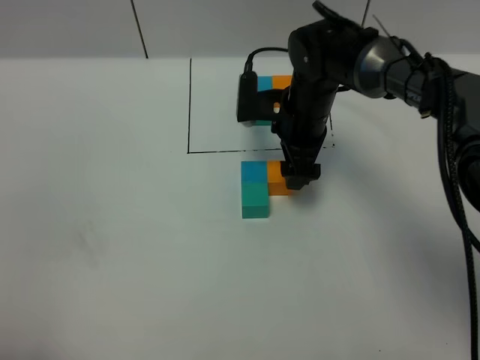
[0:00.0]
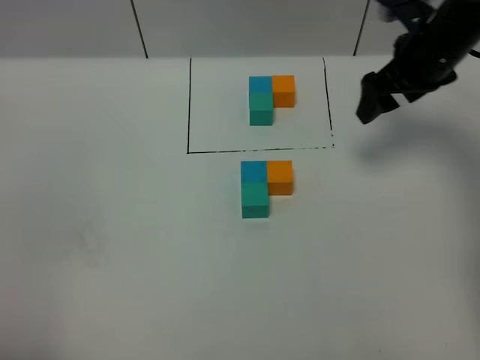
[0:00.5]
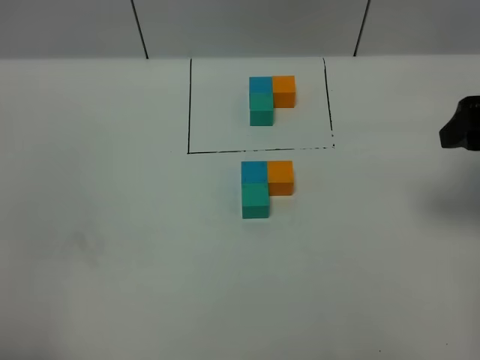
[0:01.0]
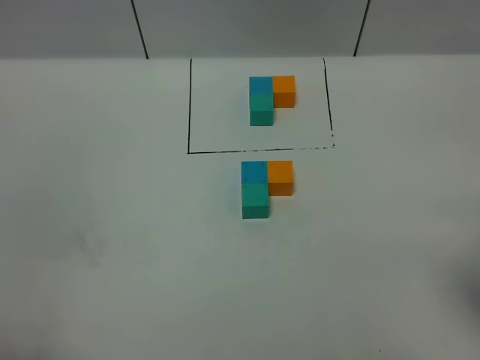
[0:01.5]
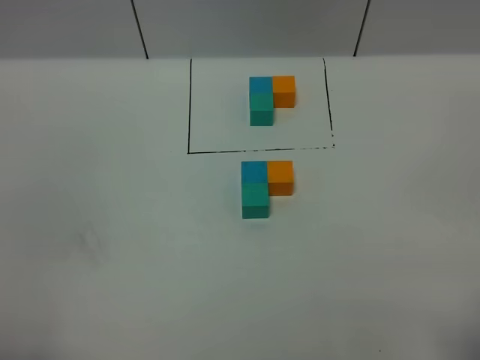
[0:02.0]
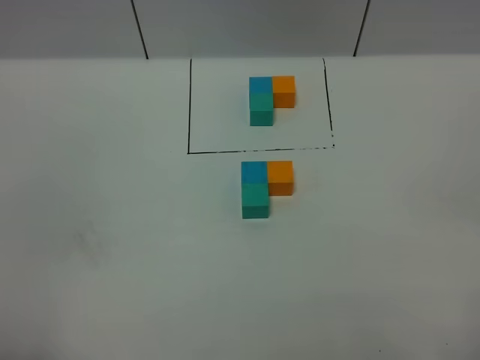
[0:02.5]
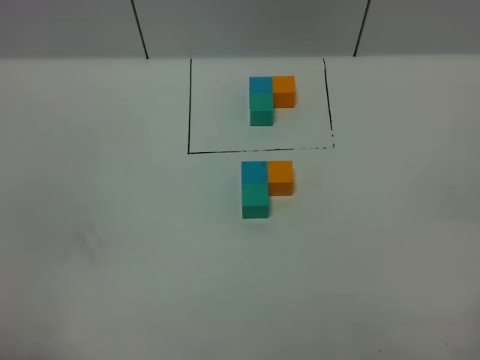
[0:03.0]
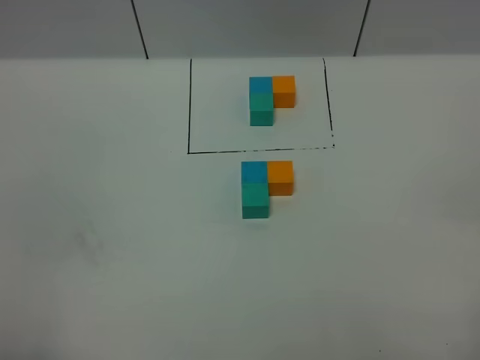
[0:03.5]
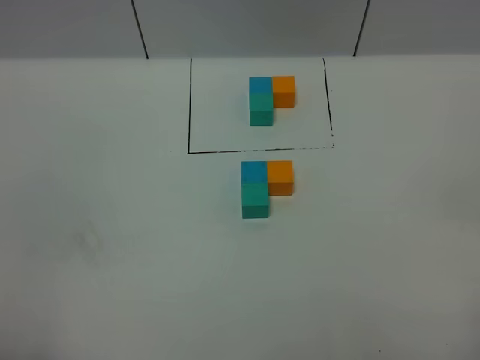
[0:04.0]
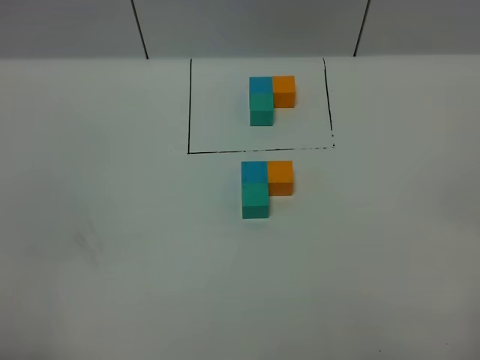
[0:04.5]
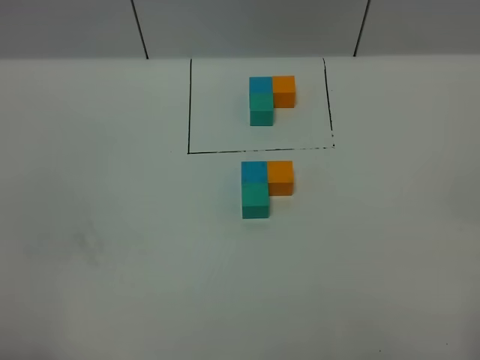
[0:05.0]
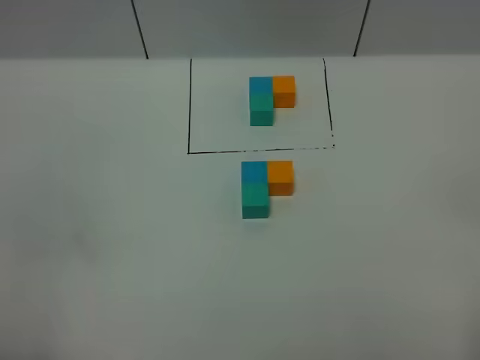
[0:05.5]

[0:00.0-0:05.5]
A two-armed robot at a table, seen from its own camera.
Task of the whole recording: According to the building block template in front, assemble the scattered blocks together.
0:00.0 to 0:02.0: The right gripper shifts roughly 40 cm backward and to the right.

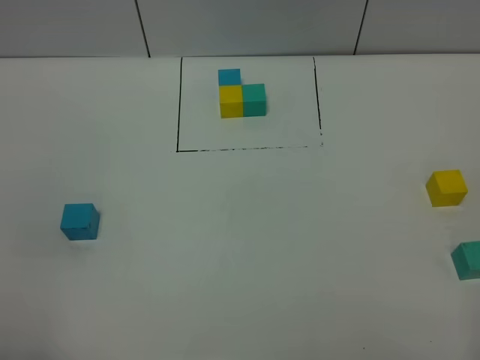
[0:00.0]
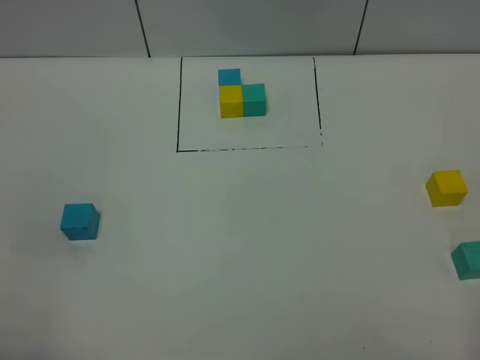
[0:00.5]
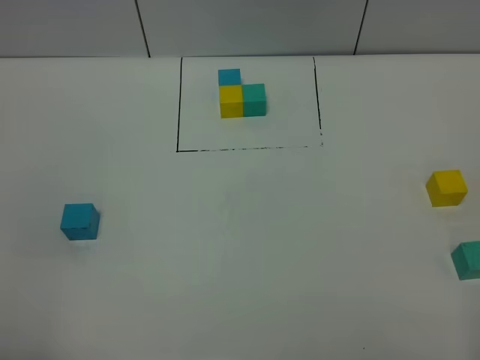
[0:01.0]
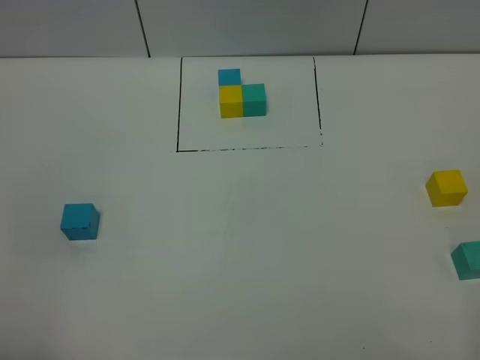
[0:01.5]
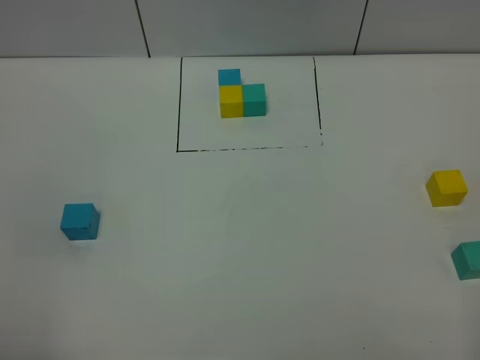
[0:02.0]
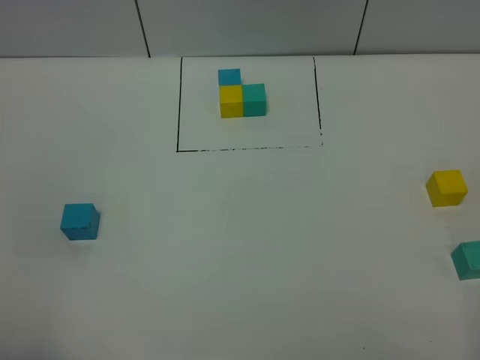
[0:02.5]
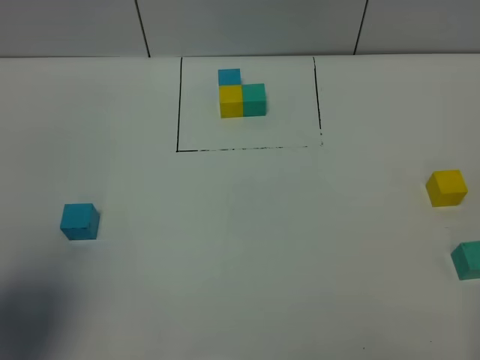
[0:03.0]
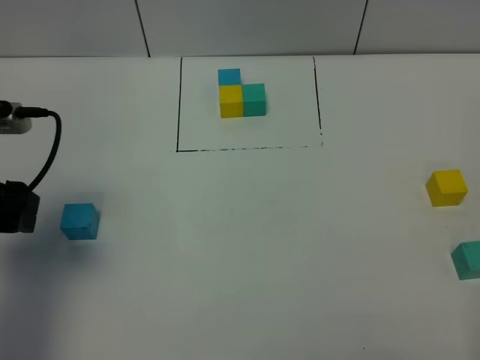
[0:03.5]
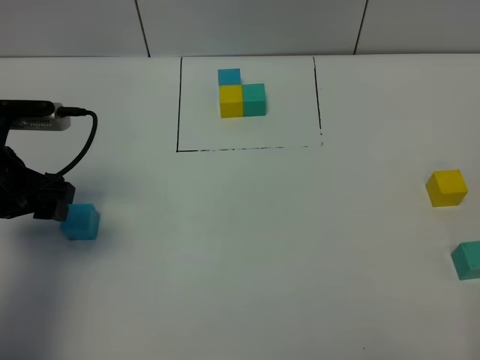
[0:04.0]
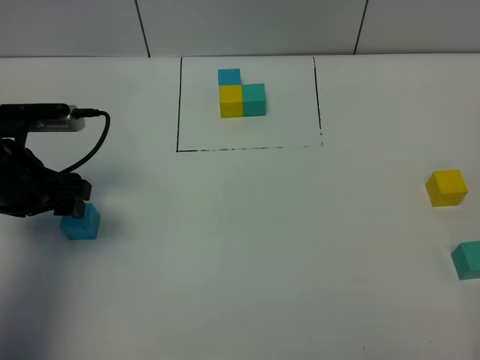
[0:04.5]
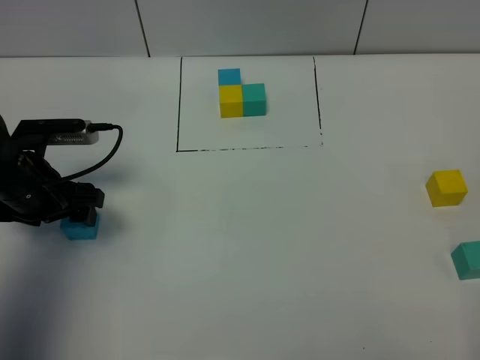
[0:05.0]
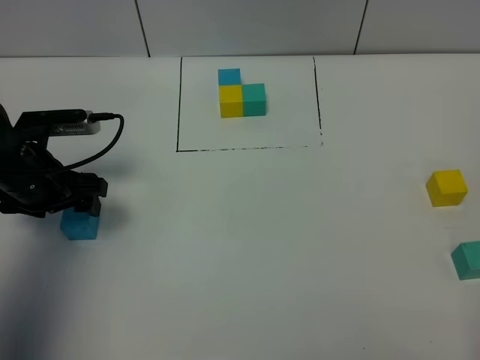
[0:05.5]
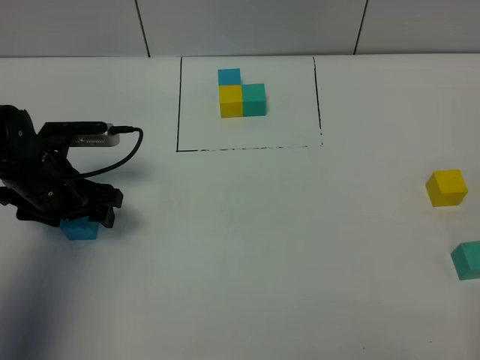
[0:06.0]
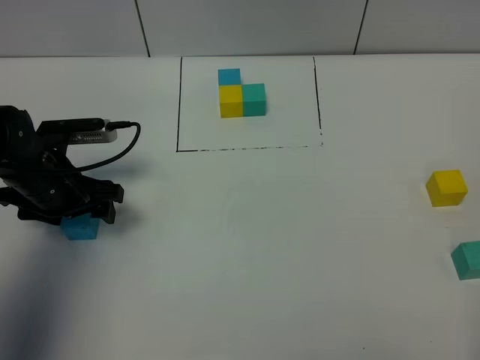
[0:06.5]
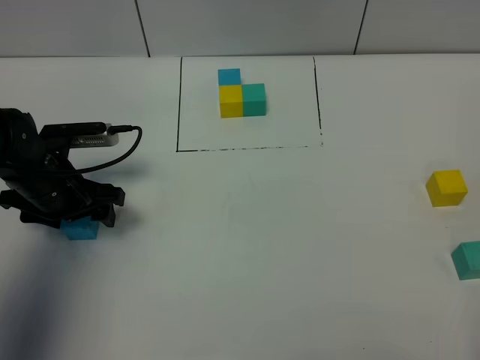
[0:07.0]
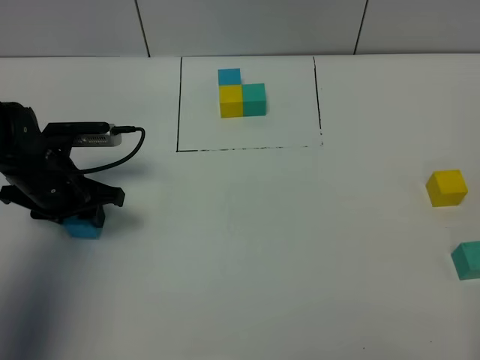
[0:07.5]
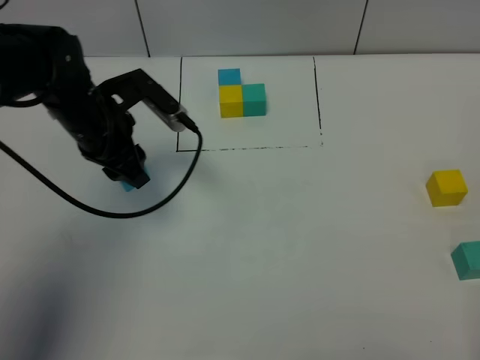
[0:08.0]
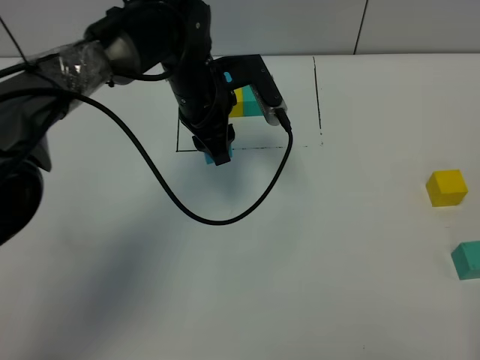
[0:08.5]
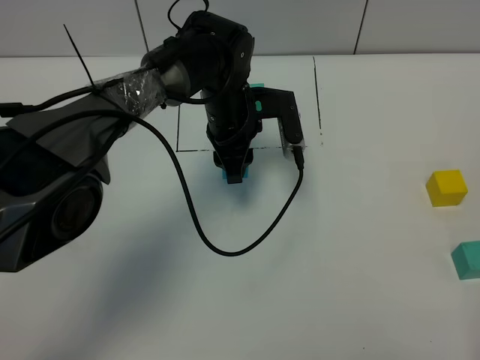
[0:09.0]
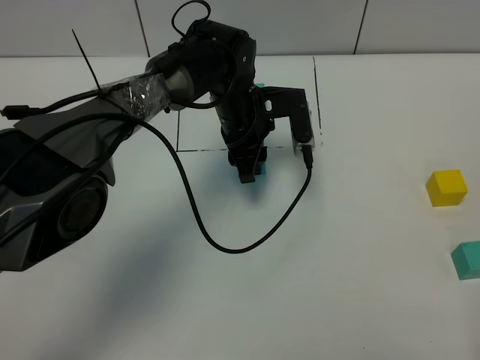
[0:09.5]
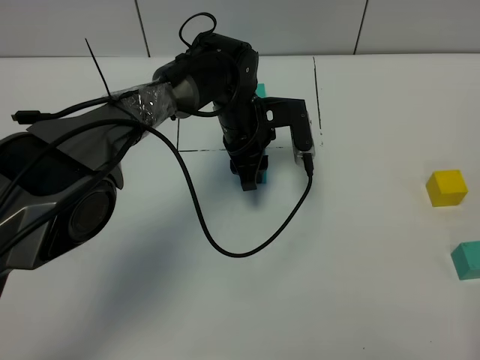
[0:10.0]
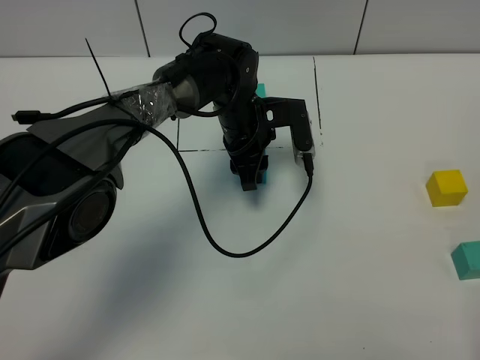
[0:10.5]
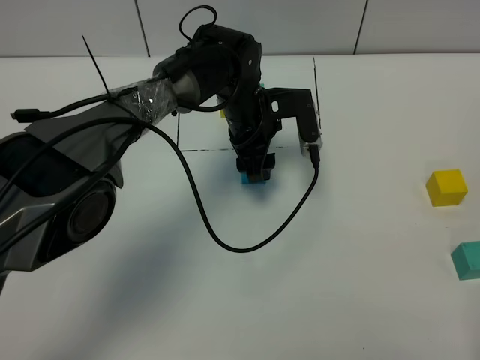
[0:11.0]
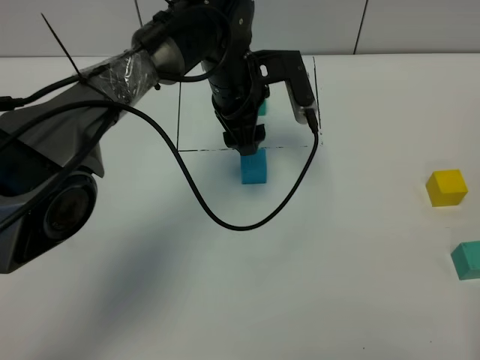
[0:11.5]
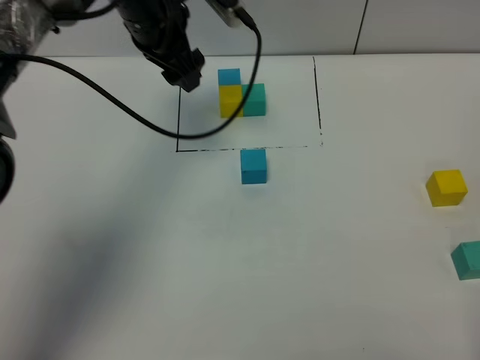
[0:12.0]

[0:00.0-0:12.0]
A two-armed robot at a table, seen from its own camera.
Task of the whole recording: According to the building block template in front, assemble the scattered blocks together.
Step, 0:00.0 to 0:10.5: Put the blue build block in the center of the table.
0:00.0 to 0:02.0: The two grippers keep their place.
0:02.0 to 0:04.0: The left gripper goes approximately 30 cm forward.
0:04.0 to 0:06.0: The left gripper moves downward, about 10 cm.
0:06.0 to 0:08.0: The left gripper is displaced to the right and upward by roughly 10 cm, and closes up.
0:08.0 to 0:10.0: The left gripper travels to the right and downward by approximately 20 cm.
0:10.0 to 0:12.0: The left gripper is displaced upward and to the left by about 20 cm, and opens its fingers.

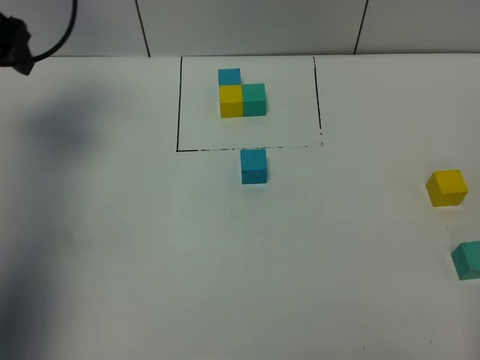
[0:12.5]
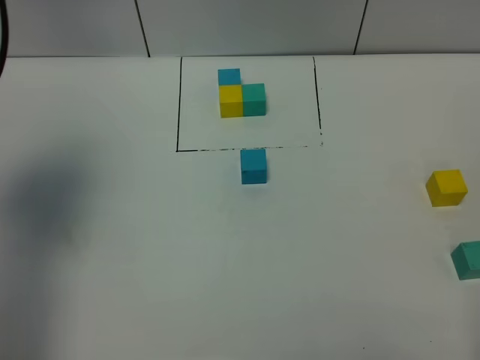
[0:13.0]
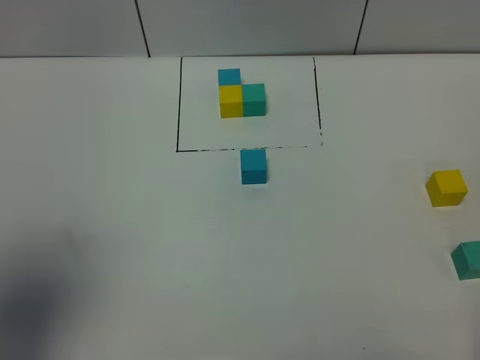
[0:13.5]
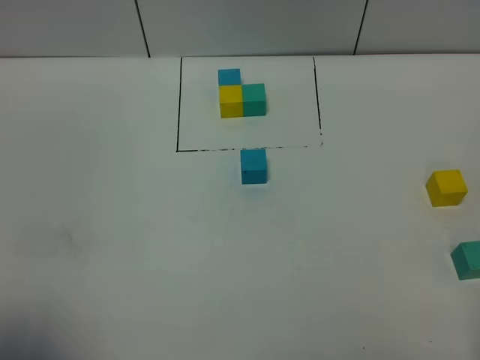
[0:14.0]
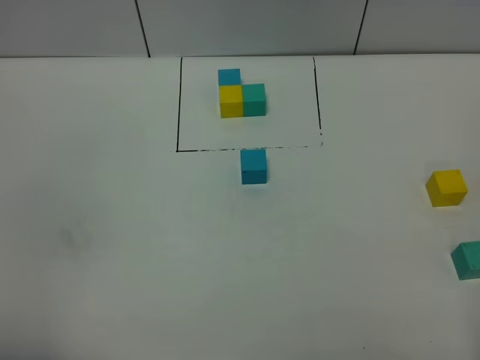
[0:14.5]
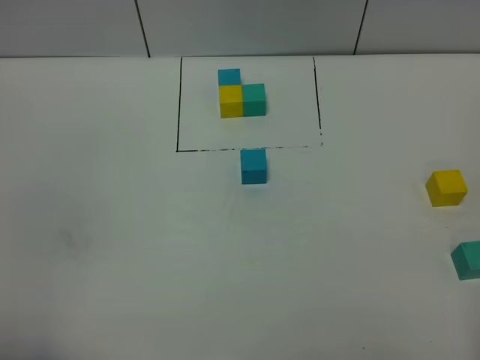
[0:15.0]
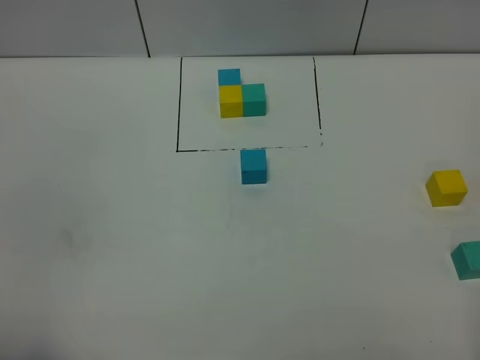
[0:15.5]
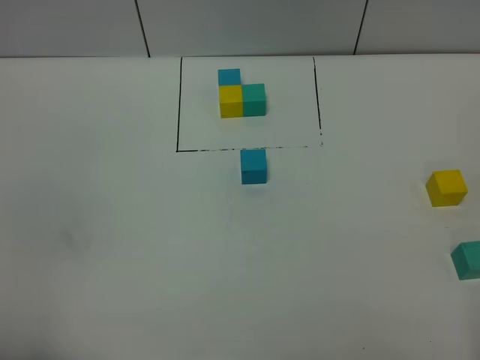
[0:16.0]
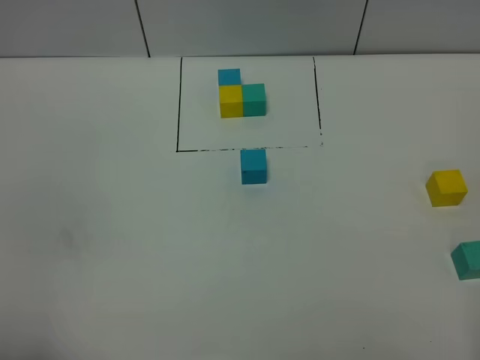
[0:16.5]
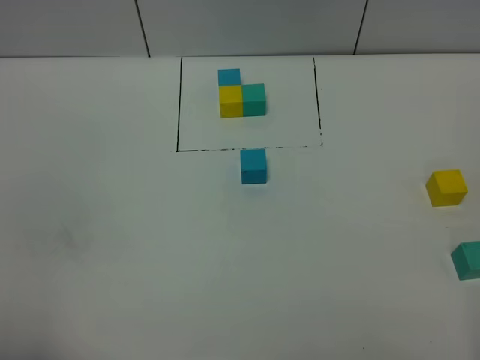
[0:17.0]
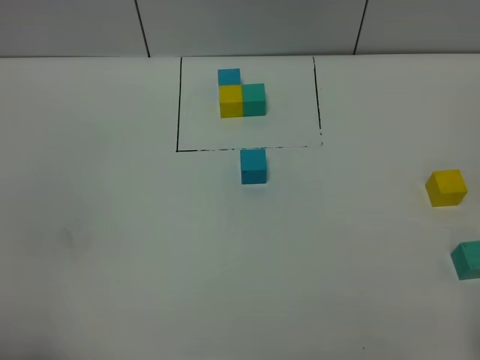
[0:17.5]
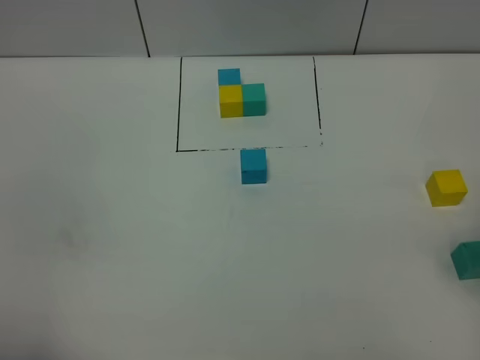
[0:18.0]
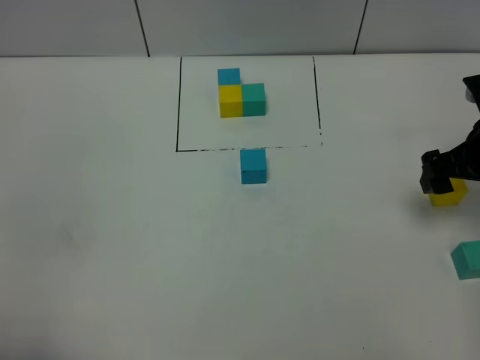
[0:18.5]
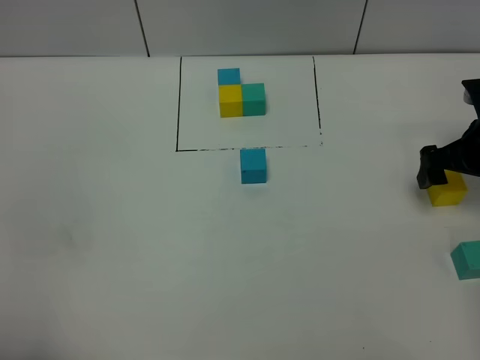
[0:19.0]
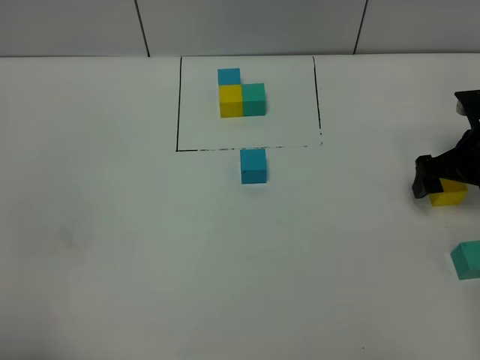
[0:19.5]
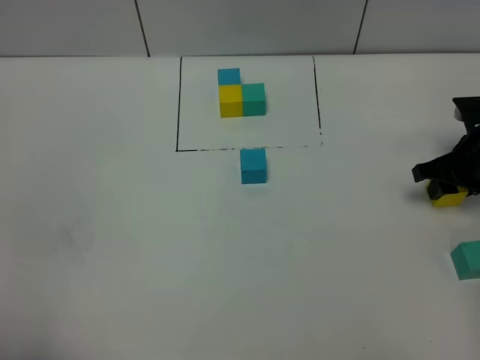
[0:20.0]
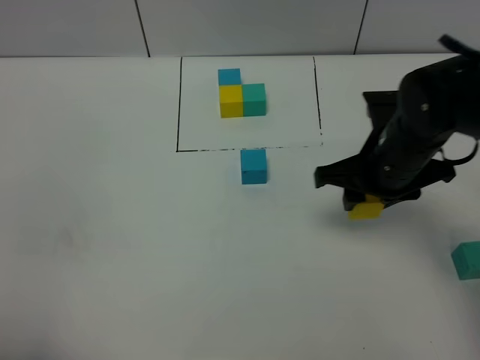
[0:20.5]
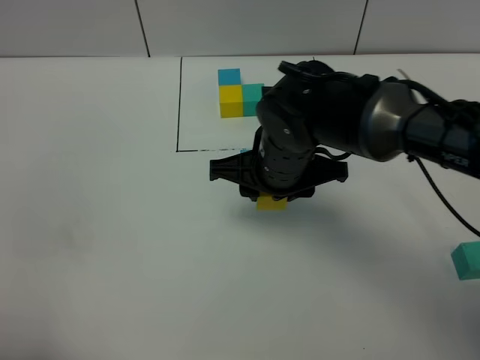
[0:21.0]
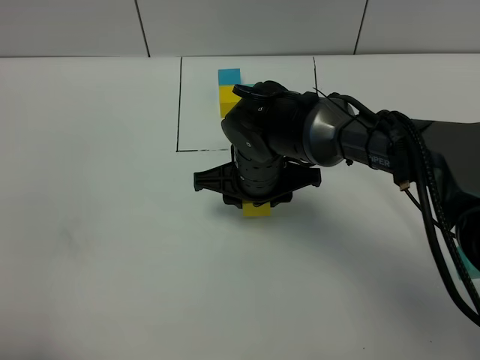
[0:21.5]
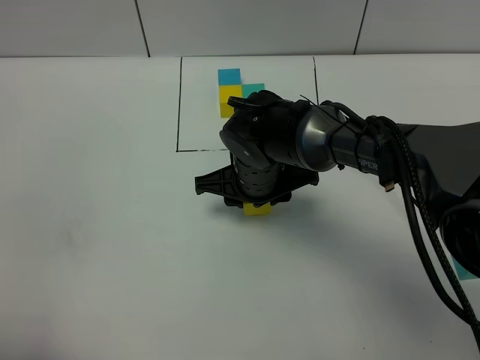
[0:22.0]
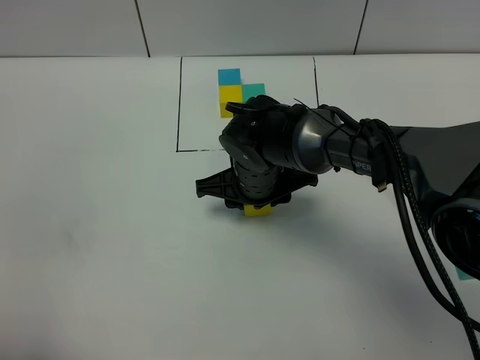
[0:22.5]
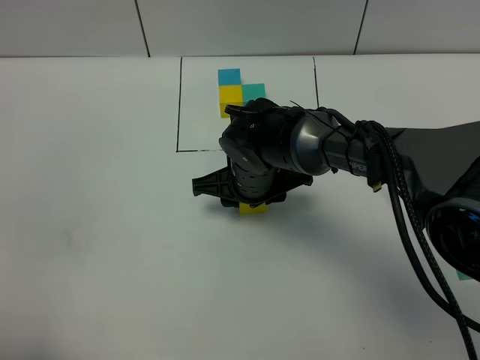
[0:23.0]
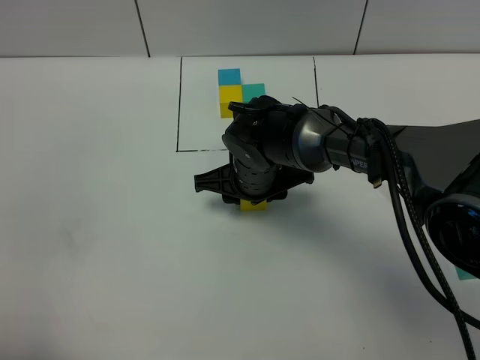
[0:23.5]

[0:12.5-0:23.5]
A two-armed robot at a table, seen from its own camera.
Task of the whole recording: According to the building block template in front, assemble the scattered blocks together.
0:12.5 to 0:14.5: The left gripper shifts roughly 40 cm backward.
0:18.0 to 0:20.0: The right gripper shifts approximately 20 cm forward and downward, and closes.
0:20.0 to 0:21.5: The right gripper heads to the left, covering approximately 30 cm.
0:21.5 to 0:23.5: The grippers stay close to where they were, moving slightly.
